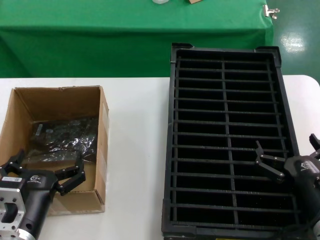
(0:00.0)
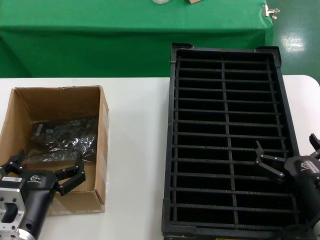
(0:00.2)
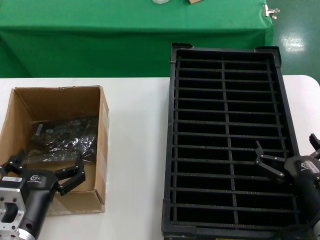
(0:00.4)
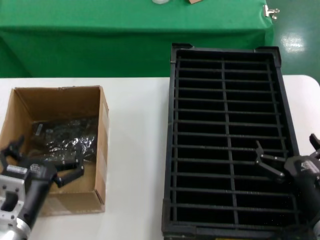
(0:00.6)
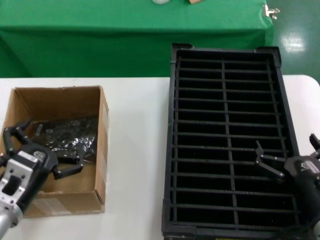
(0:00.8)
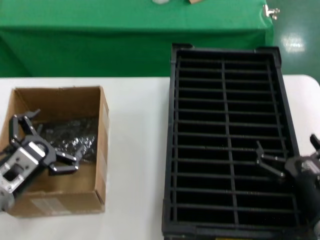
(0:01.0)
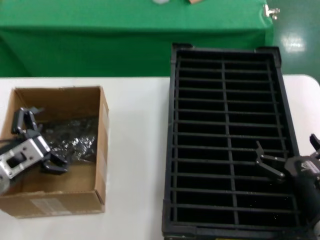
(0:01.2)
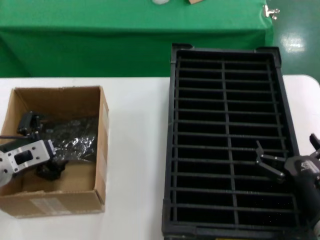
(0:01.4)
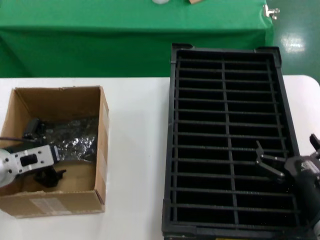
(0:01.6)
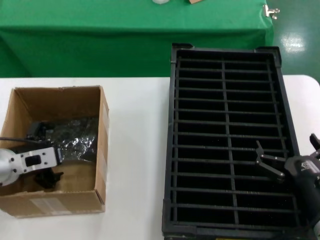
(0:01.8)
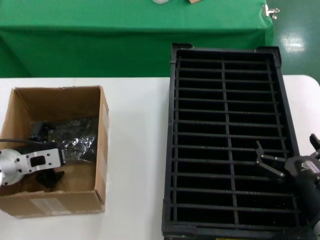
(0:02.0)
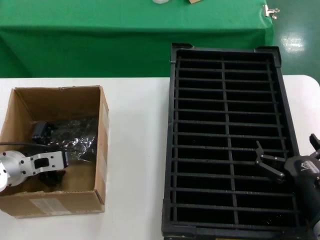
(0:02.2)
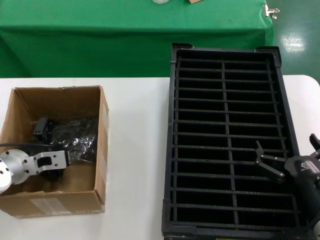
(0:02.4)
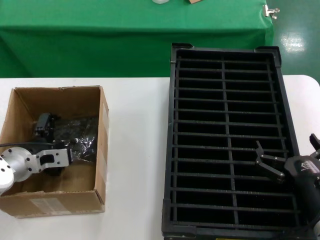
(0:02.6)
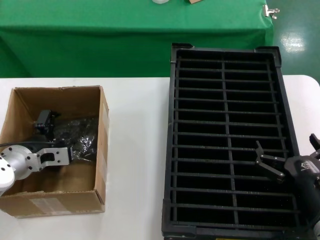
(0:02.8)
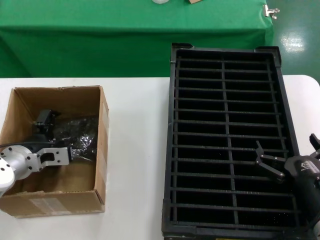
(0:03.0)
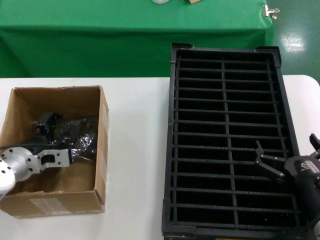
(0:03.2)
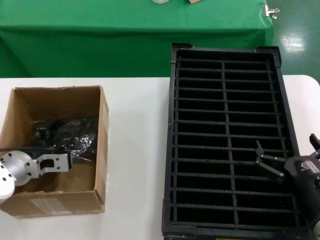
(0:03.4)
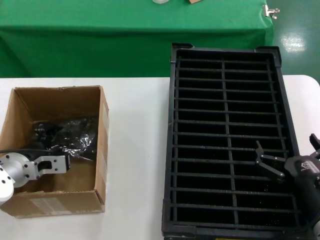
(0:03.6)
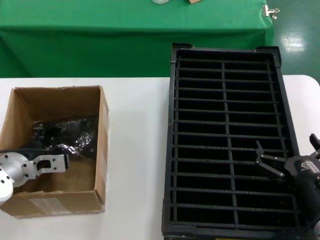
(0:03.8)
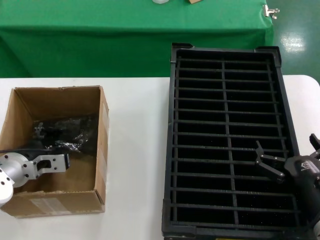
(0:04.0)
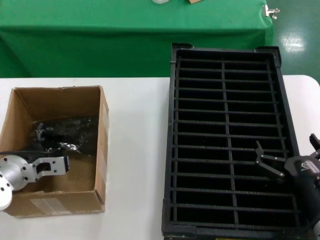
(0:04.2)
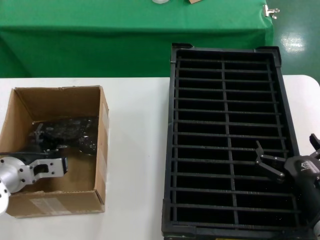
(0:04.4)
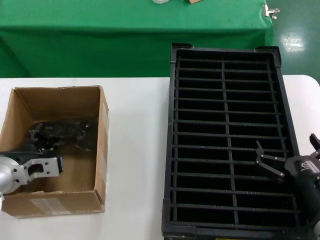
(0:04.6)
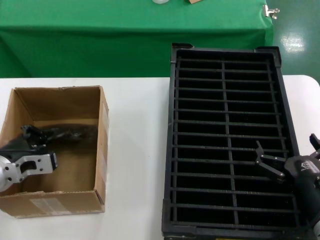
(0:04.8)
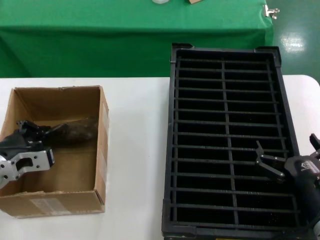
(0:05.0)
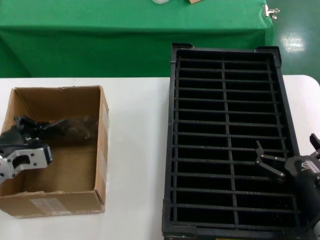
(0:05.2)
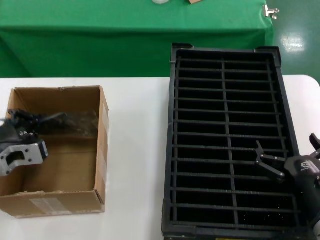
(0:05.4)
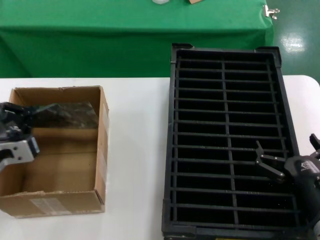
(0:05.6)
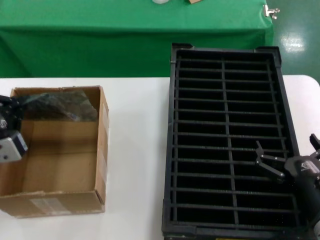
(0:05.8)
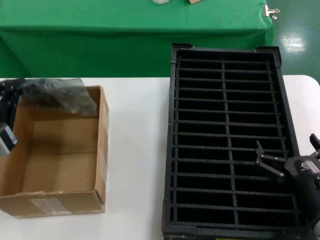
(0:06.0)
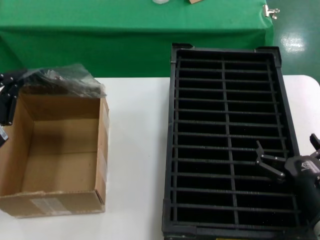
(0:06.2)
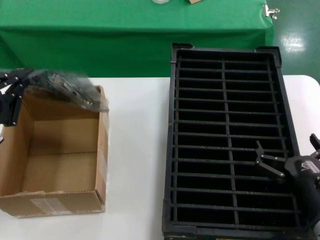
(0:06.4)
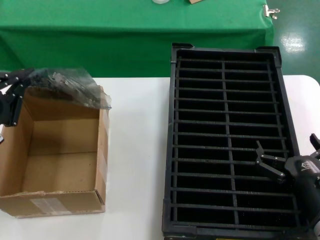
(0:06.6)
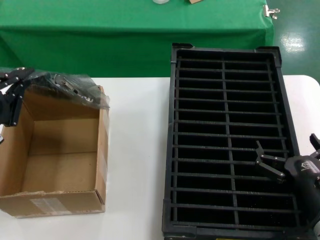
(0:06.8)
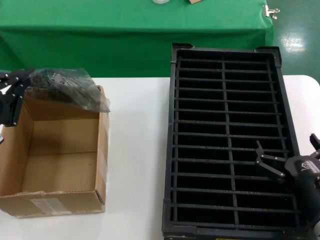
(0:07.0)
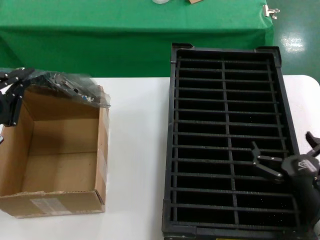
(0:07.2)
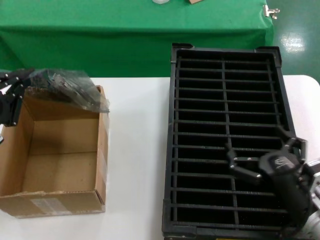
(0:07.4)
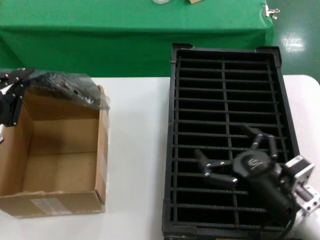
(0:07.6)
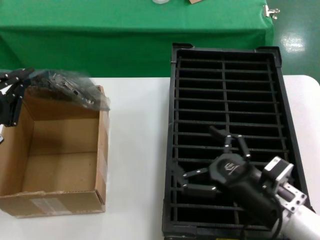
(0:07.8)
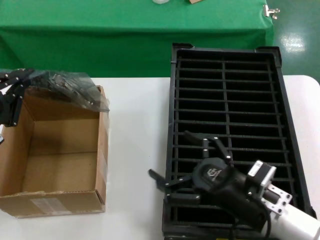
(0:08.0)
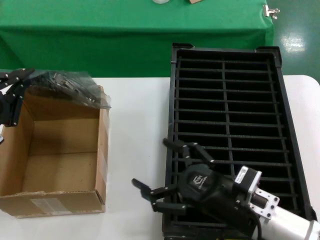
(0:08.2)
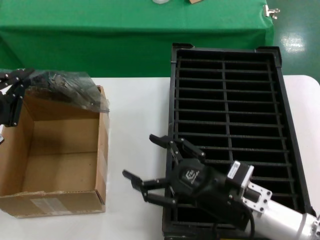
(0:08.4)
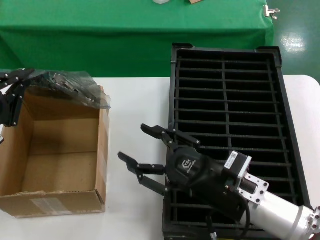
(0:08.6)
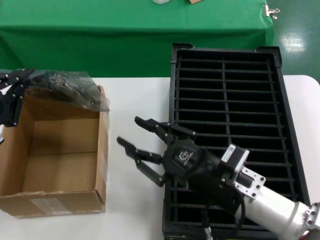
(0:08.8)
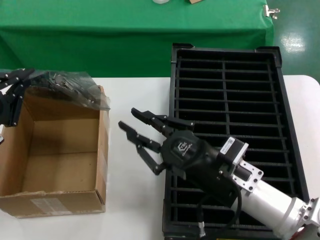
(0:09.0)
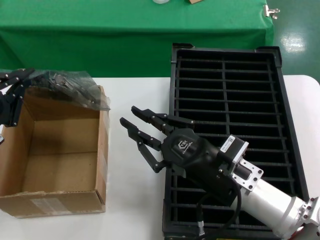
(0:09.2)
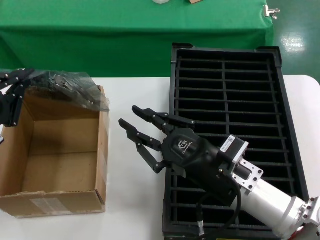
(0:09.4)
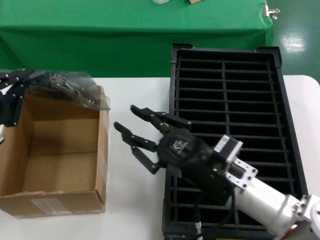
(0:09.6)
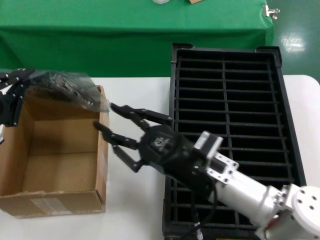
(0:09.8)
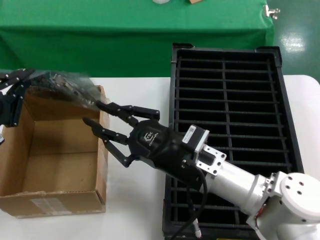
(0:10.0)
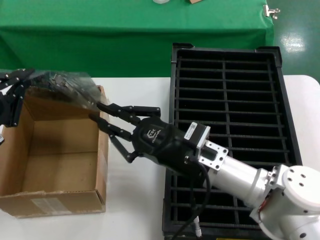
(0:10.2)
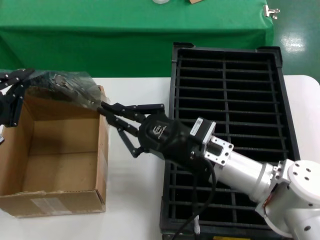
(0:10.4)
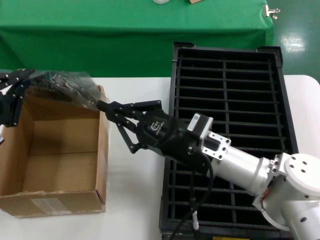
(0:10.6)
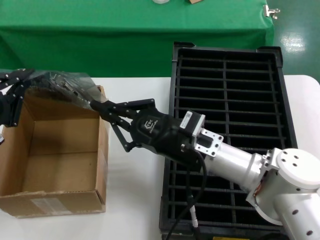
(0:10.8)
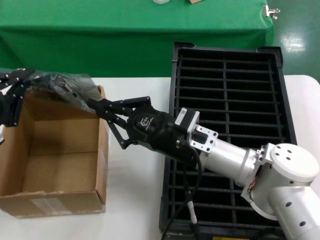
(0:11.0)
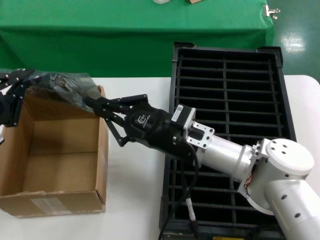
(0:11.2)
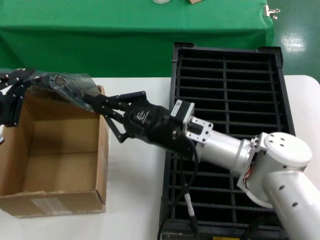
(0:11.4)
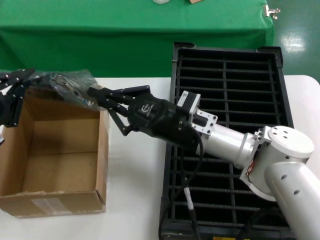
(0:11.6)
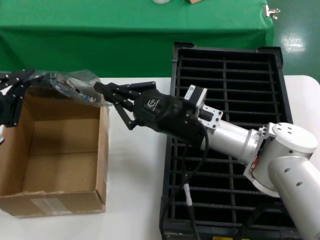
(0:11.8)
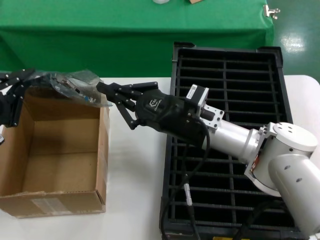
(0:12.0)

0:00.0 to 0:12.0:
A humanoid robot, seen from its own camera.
Task of the whole recording: take out graphics card from box remove packaging put into black container.
Step, 0:00.0 to 0:04.2: Grasp the bag.
Step, 0:04.6 to 0:06.8: Lift the bag.
0:00.0 to 0:01.6: The left hand moves forward, to the left and upward, roughly 20 cm.
0:01.6 to 0:03.0: The left hand ends up some 5 cm from where it was.
0:03.0 to 0:04.4: The hands move only a little.
0:04.4 to 0:06.0: The left hand moves backward and upward, approximately 20 cm.
0:07.6 to 0:09.0: The right hand moves to the left, roughly 10 cm.
0:09.0 to 0:10.4: The right hand shifts roughly 5 cm forward.
0:10.4 to 0:12.0: The right hand shifts roughly 10 cm forward.

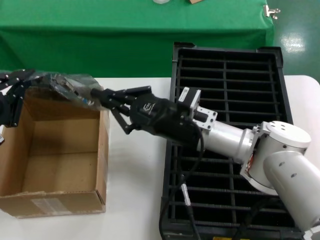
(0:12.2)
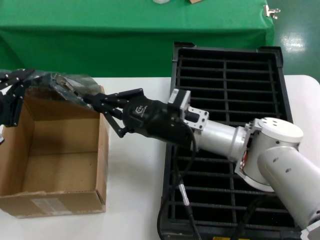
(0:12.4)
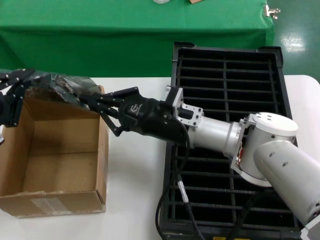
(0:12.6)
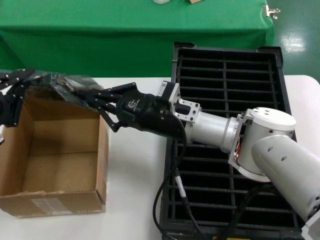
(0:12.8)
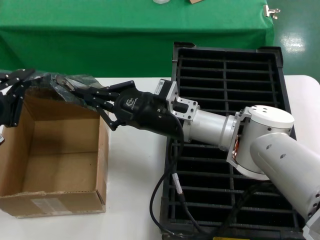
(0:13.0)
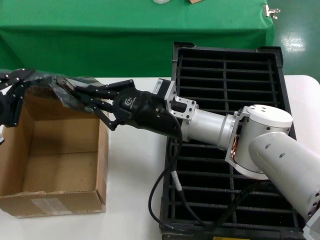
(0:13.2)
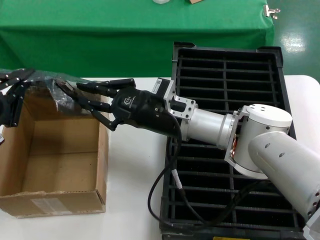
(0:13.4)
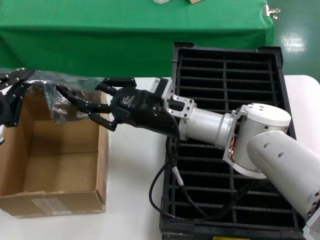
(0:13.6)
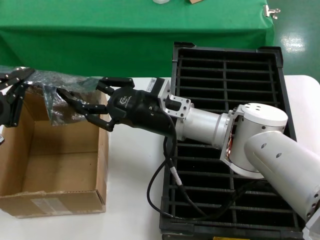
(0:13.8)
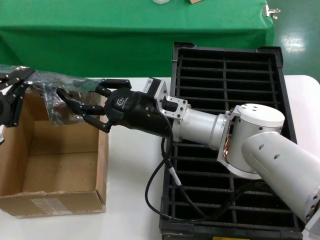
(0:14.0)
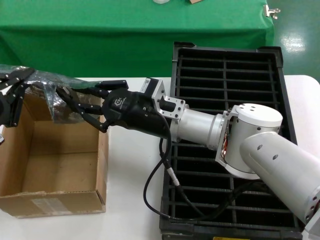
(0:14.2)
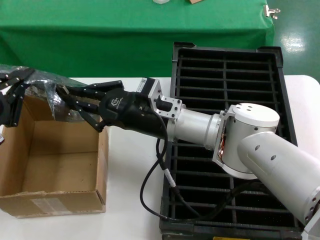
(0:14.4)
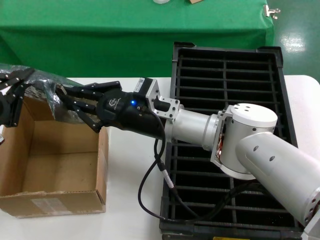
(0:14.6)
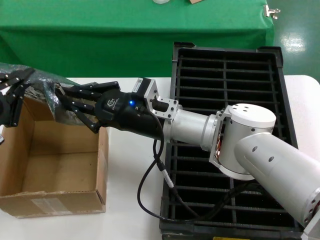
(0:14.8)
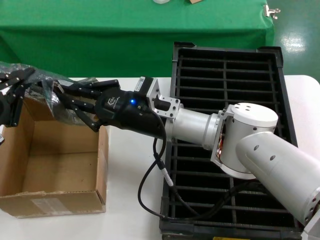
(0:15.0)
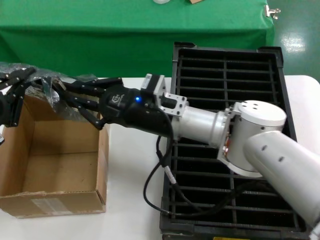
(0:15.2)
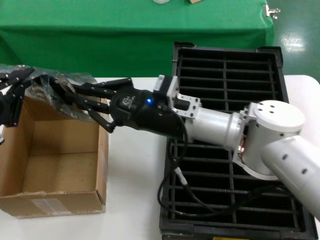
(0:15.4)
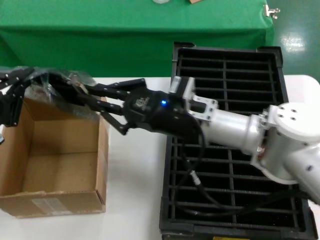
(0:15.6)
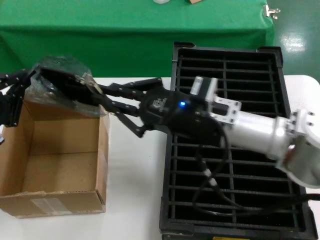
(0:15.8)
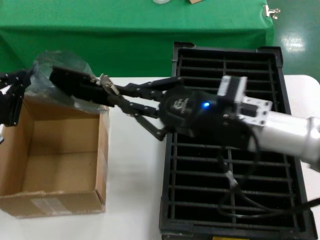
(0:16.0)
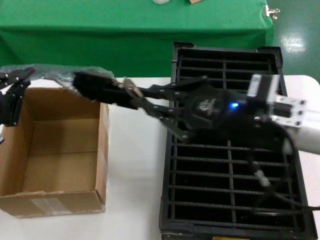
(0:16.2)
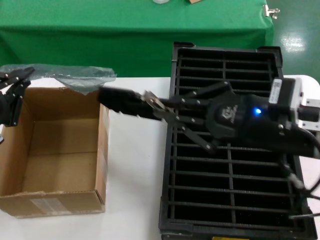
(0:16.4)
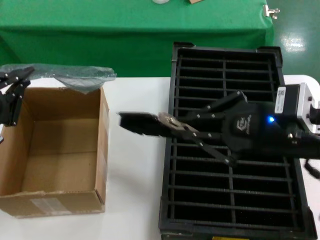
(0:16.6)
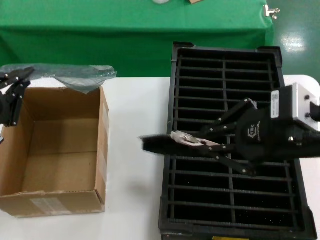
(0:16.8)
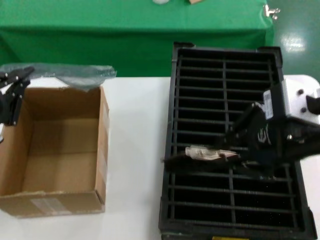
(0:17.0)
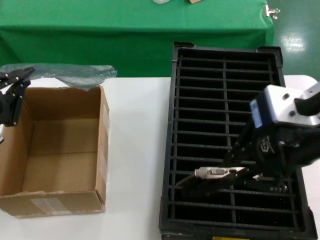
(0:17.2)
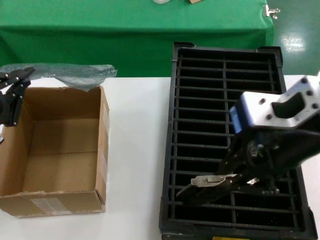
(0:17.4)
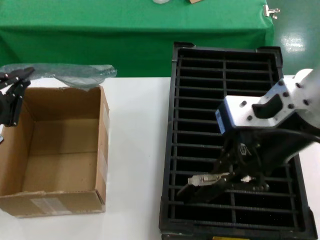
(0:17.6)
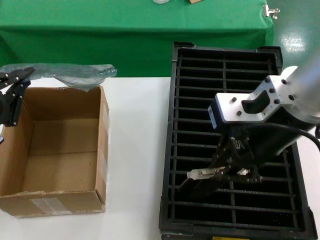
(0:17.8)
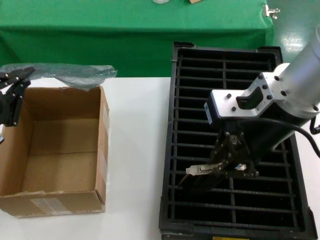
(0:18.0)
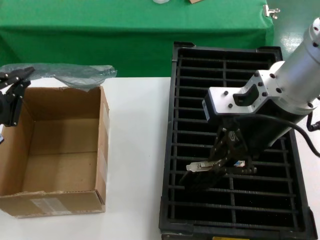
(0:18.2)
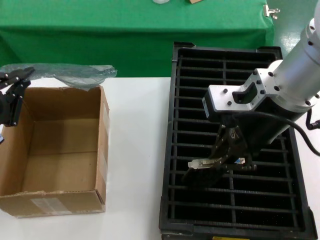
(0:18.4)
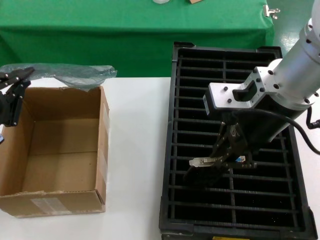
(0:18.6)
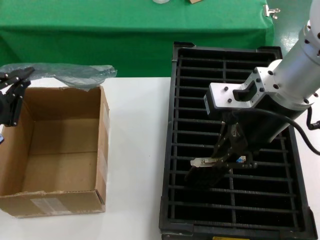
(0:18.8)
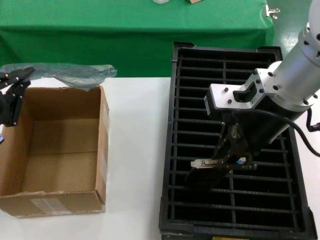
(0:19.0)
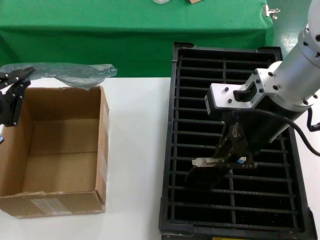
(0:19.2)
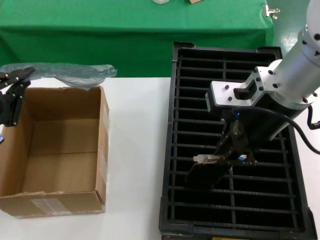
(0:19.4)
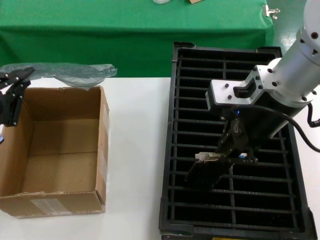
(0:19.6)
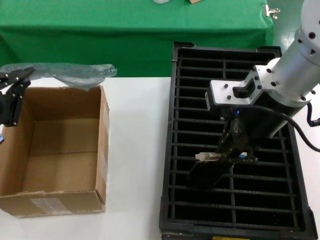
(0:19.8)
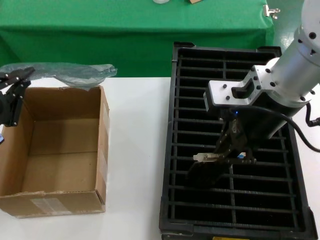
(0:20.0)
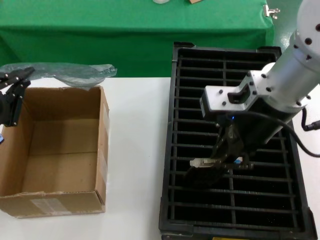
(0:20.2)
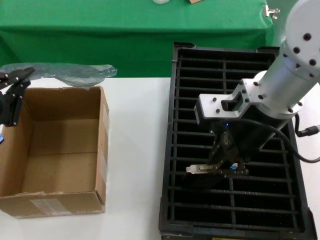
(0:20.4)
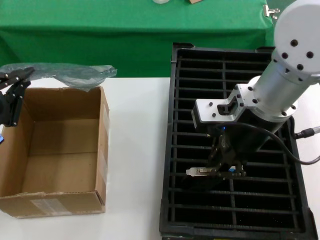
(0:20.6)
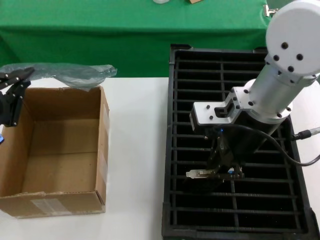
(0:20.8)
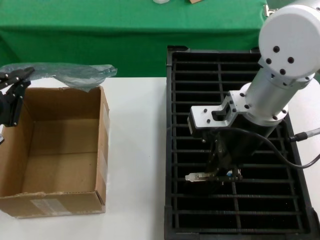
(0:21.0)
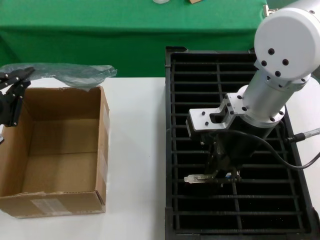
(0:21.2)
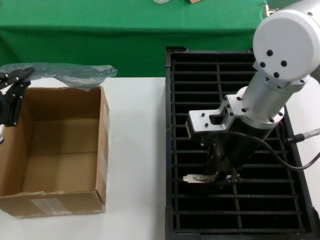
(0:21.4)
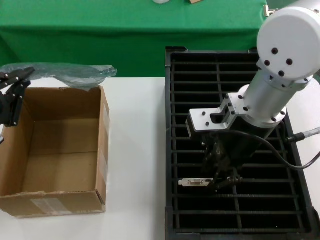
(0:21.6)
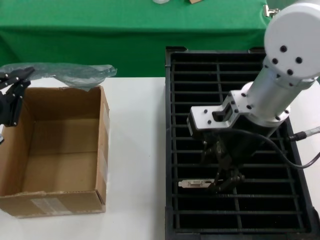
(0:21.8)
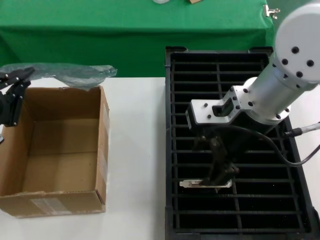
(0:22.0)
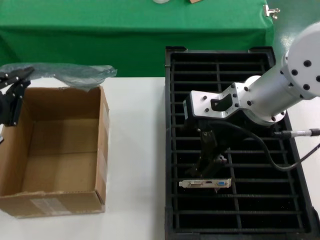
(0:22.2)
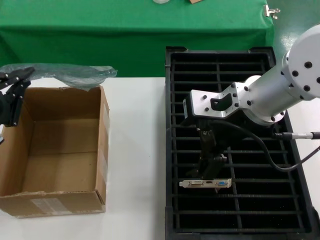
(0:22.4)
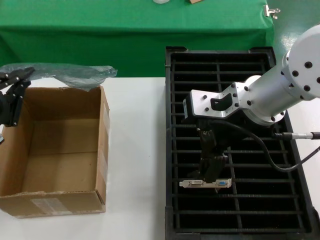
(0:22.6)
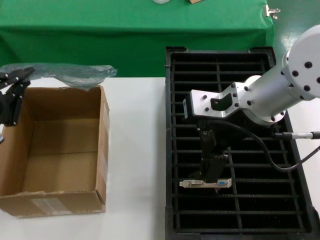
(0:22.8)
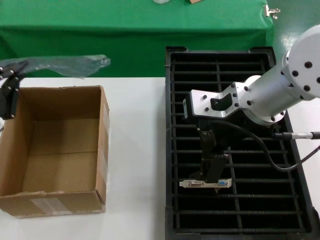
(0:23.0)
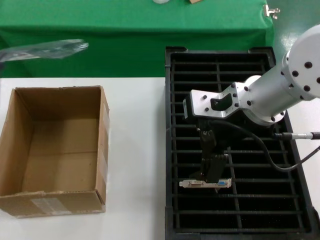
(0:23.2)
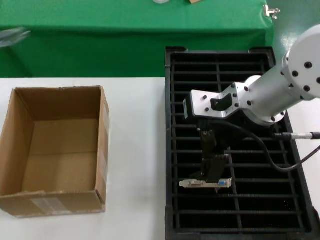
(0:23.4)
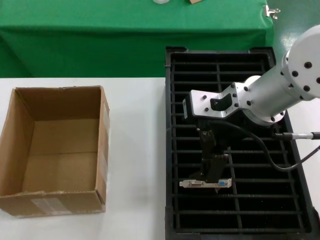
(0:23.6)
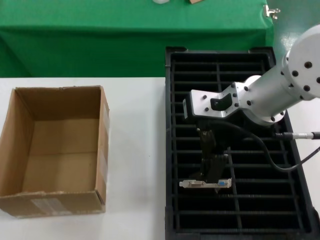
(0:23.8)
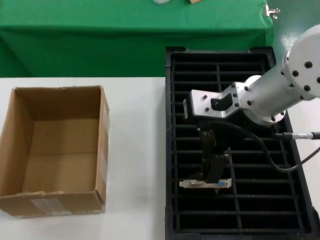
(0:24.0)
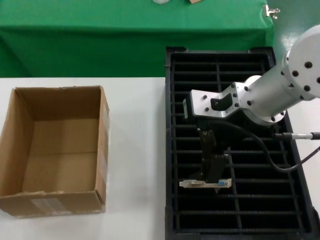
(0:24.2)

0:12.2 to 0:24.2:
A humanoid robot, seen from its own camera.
Task of the whole recording: take out graphics card from box remove packaging put into black container.
Step, 0:12.2 to 0:16.2: Take out the hard disk of the bag.
Step, 0:16.6 to 0:21.6: Place the hard disk in the hard disk enclosure.
0:12.2 to 0:13.8: The right hand changes place by some 5 cm.
0:13.8 to 0:15.2: The hands make only small movements.
0:15.2 to 0:16.6: The right hand shifts about 30 cm to the right, backward and upward.
0:16.6 to 0:18.2: The right hand moves to the left, upward and forward, some 15 cm.
0:18.2 to 0:19.8: There are only small adjustments of the hands.
0:19.8 to 0:21.2: The right hand ends up roughly 5 cm from where it was.
0:21.2 to 0:22.6: There are only small adjustments of the hands.
0:22.6 to 0:24.2: The left hand is displaced downward and to the left by roughly 10 cm.
